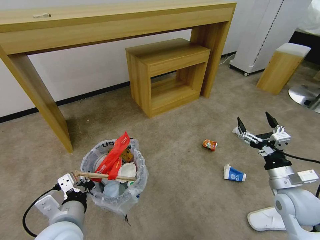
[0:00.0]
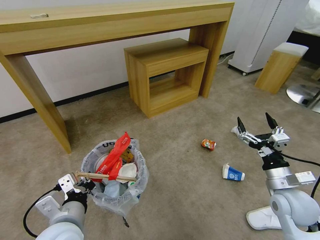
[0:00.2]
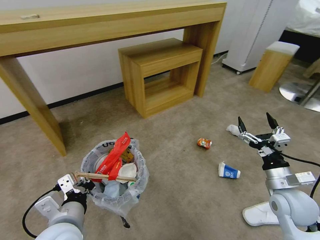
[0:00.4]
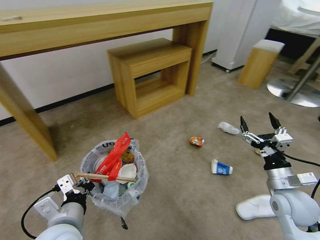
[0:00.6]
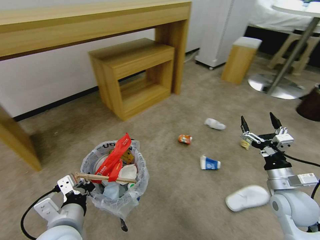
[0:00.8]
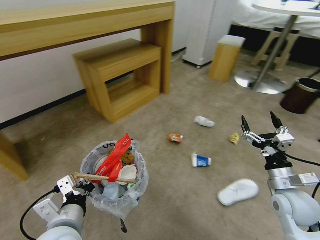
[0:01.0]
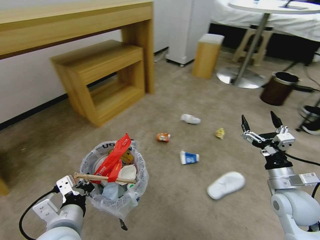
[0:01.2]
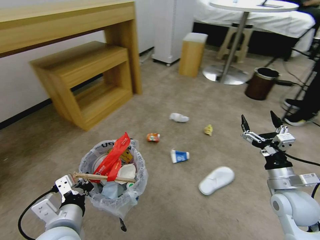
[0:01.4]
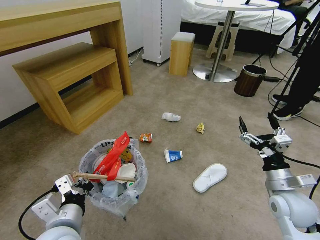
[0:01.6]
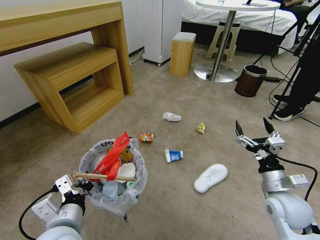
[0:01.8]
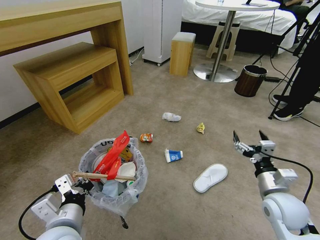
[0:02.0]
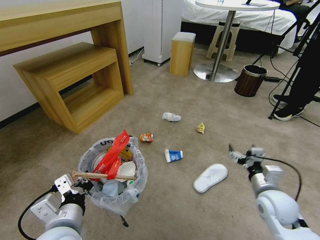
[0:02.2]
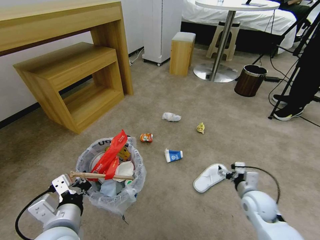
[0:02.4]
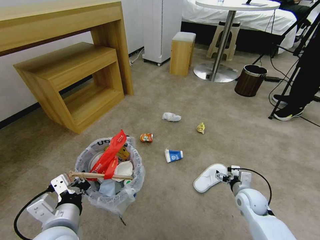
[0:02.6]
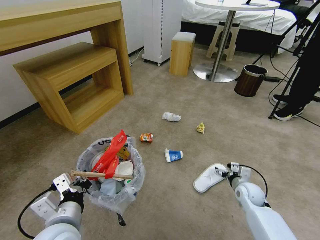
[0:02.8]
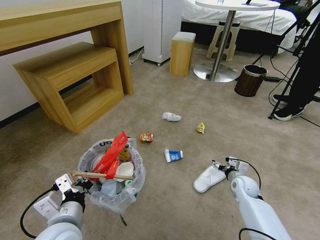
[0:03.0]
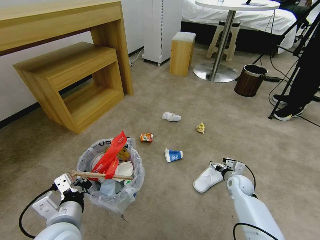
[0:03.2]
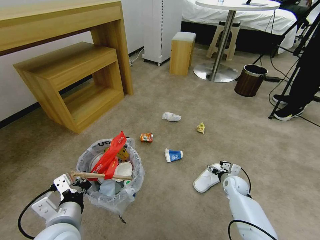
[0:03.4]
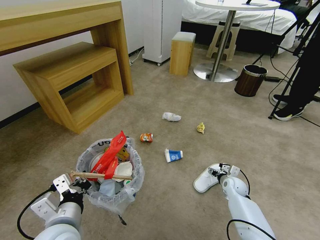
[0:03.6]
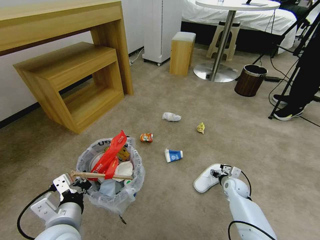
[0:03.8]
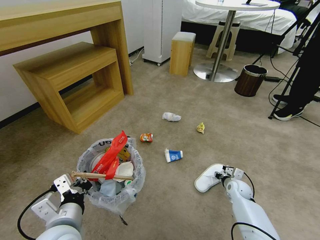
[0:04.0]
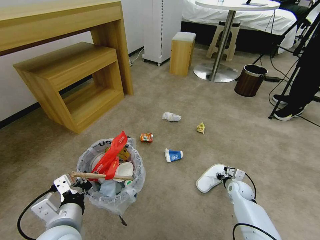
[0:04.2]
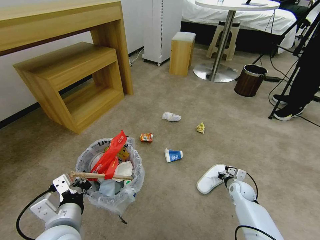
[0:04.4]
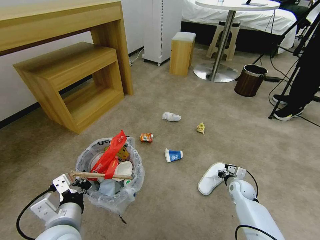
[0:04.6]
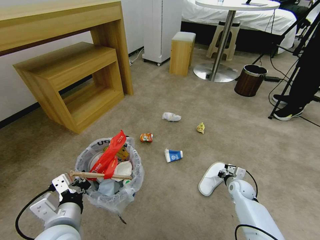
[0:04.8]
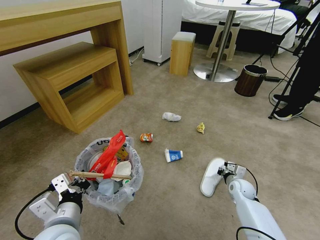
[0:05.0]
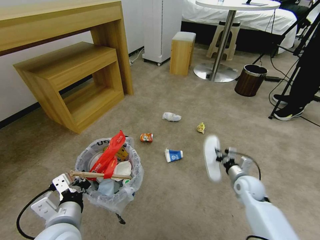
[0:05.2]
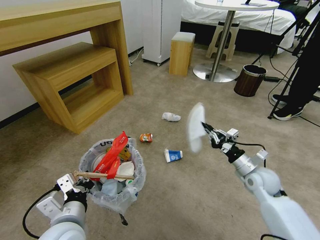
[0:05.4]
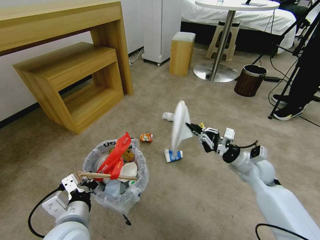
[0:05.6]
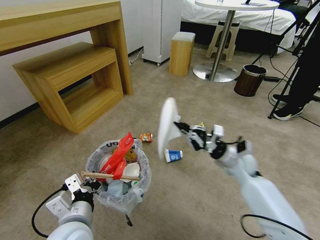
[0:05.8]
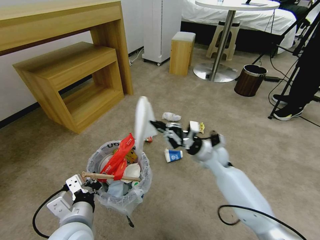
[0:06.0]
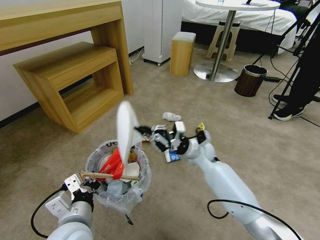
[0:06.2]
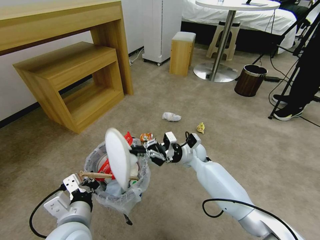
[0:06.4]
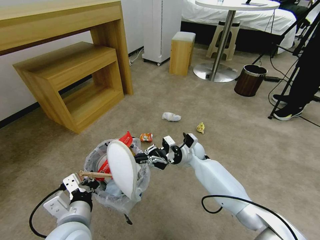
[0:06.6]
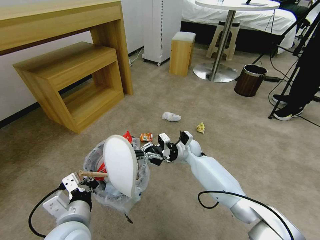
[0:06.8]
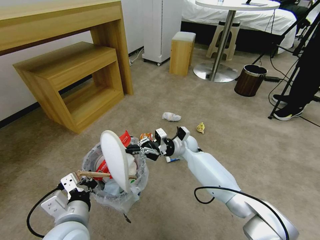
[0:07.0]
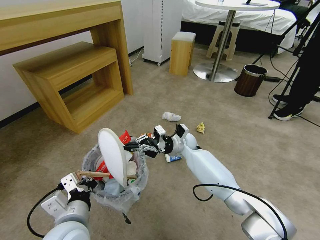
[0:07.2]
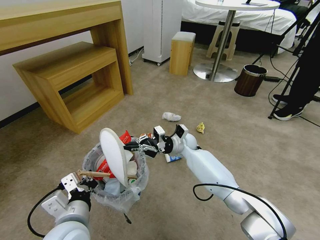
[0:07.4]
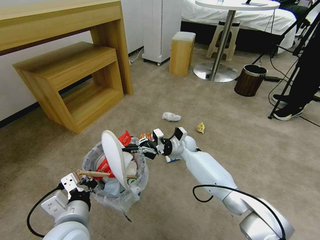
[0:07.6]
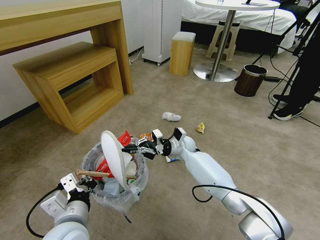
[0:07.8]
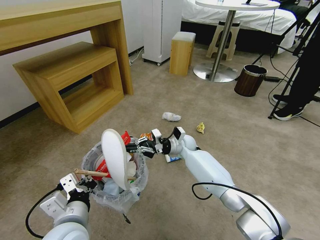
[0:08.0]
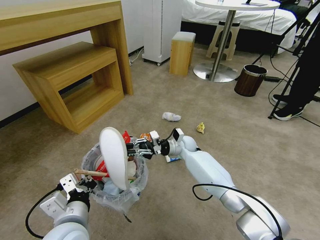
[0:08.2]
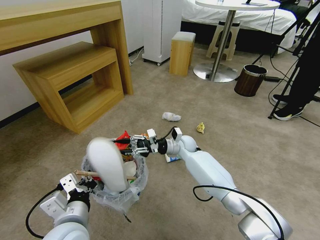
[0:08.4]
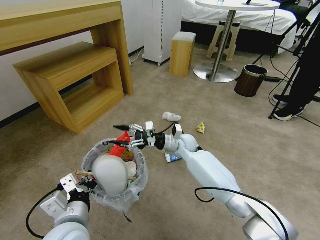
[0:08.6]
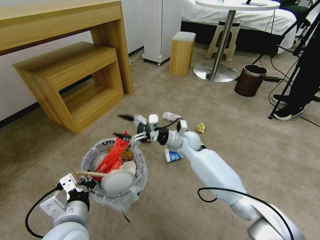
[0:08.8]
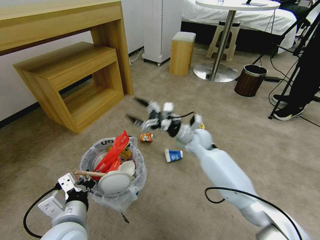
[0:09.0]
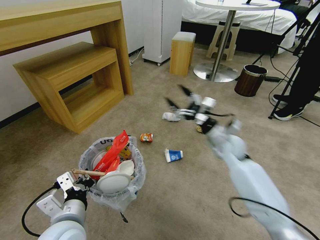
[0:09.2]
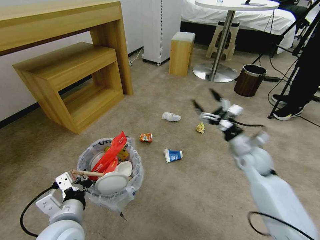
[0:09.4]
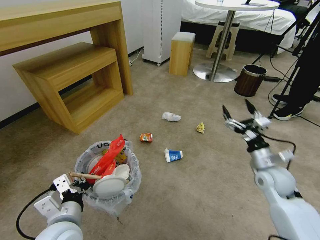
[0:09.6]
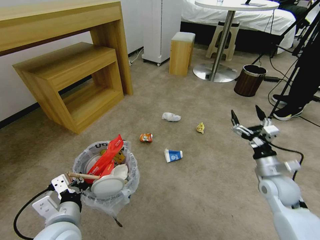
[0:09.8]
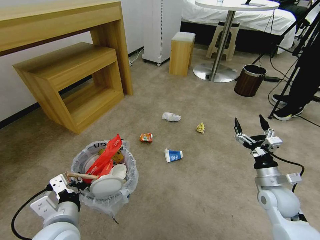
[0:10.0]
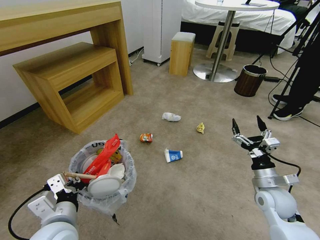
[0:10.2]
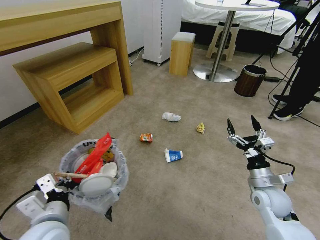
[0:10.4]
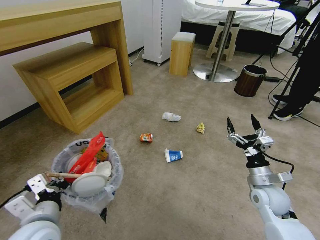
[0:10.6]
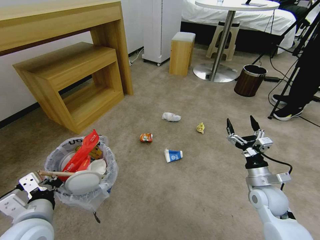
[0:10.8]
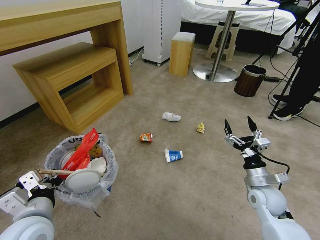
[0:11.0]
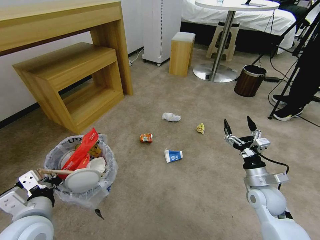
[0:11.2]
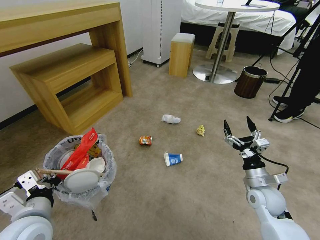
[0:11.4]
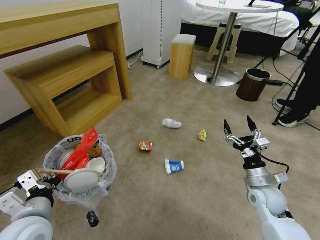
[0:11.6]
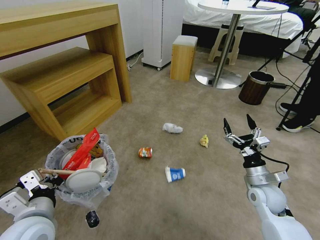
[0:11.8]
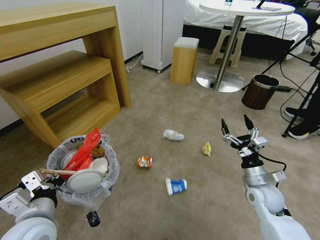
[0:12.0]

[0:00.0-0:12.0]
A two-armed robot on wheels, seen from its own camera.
Task of the whole recording: Pick up the trash bin and place the garbage on the floor into it.
0:01.6 to 0:03.0: The right gripper shifts approximately 20 cm downward and forward.
0:03.0 to 0:04.4: The right gripper goes approximately 5 cm downward, and closes up.
0:04.4 to 0:06.0: The right gripper heads upward and to the left, covering approximately 25 cm.
0:06.0 to 0:07.6: The right gripper goes roughly 15 cm to the left and forward.
0:07.6 to 0:09.0: The right gripper shifts about 10 cm upward and to the right, and opens its fingers.
0:09.0 to 0:10.4: The right gripper moves backward and to the right, some 25 cm.

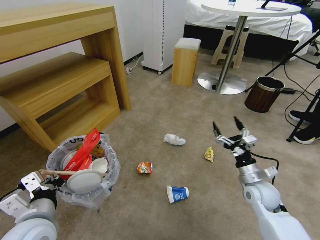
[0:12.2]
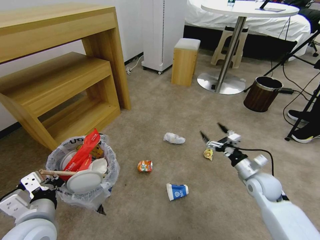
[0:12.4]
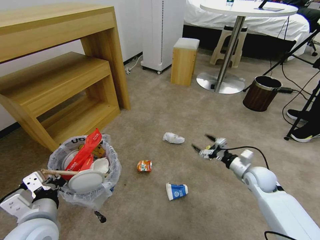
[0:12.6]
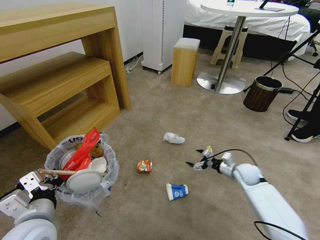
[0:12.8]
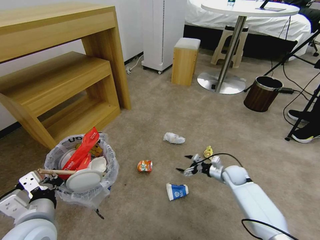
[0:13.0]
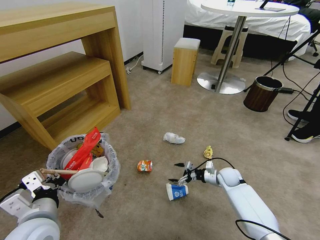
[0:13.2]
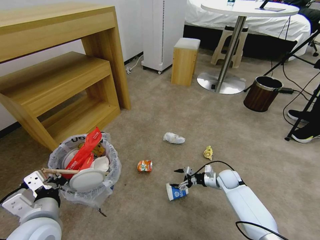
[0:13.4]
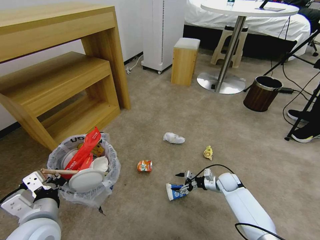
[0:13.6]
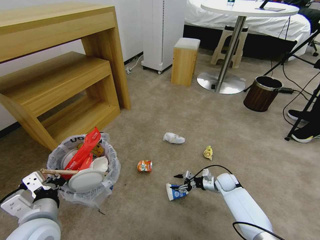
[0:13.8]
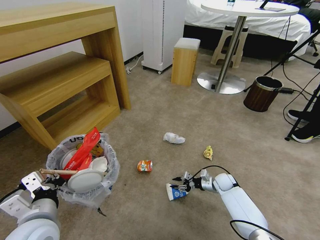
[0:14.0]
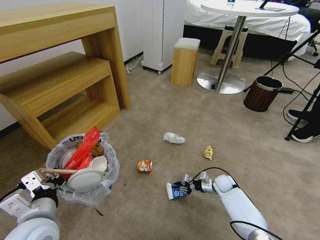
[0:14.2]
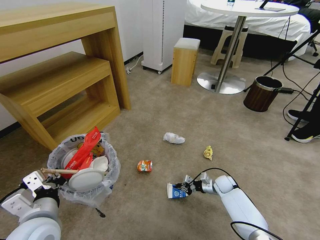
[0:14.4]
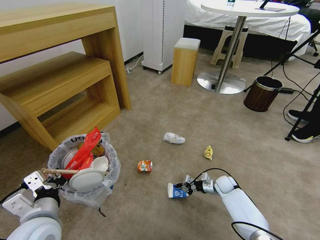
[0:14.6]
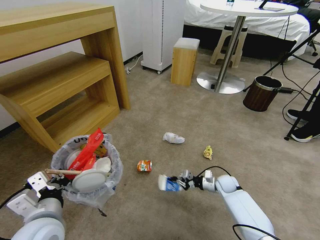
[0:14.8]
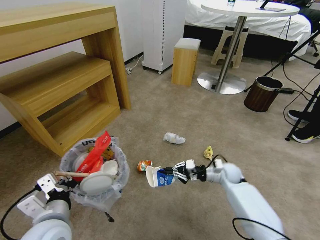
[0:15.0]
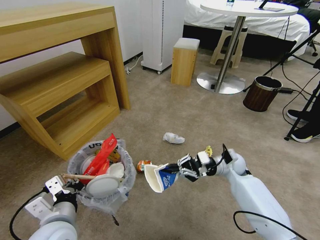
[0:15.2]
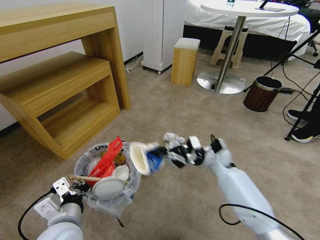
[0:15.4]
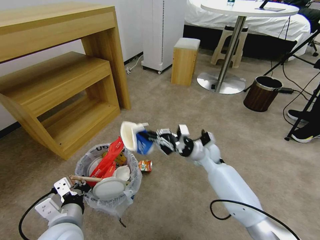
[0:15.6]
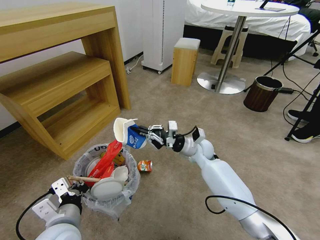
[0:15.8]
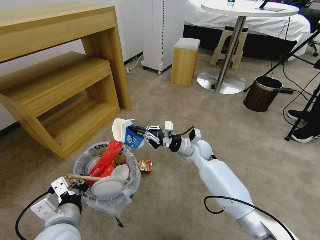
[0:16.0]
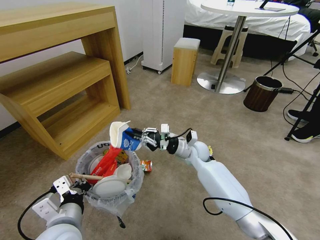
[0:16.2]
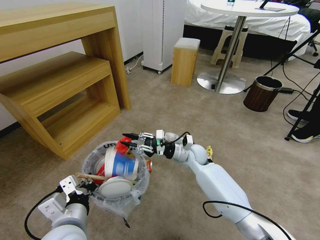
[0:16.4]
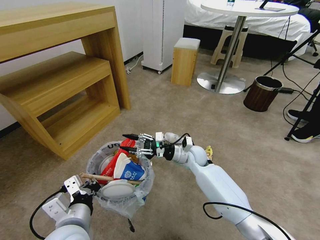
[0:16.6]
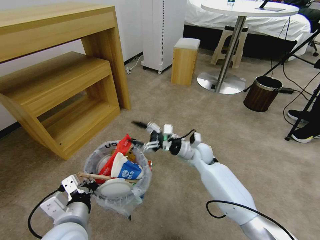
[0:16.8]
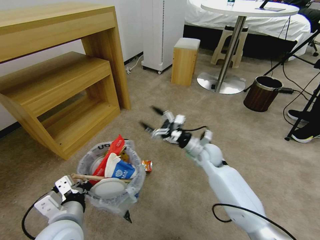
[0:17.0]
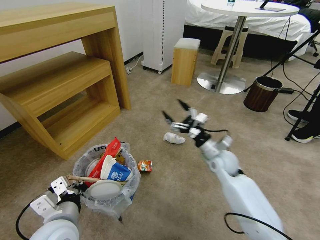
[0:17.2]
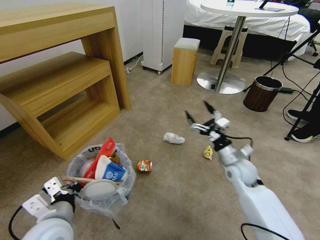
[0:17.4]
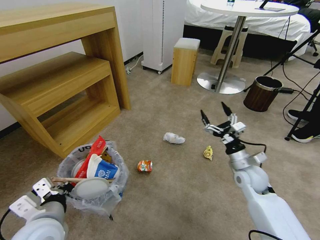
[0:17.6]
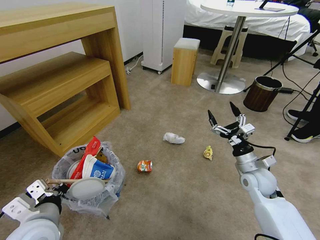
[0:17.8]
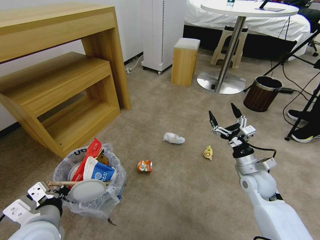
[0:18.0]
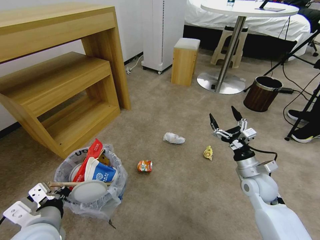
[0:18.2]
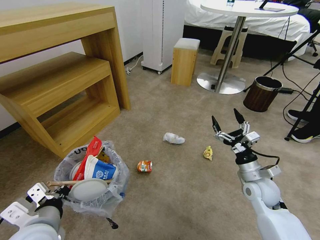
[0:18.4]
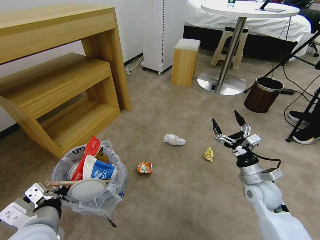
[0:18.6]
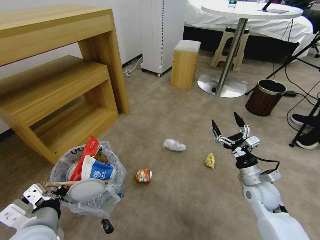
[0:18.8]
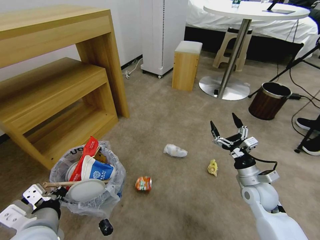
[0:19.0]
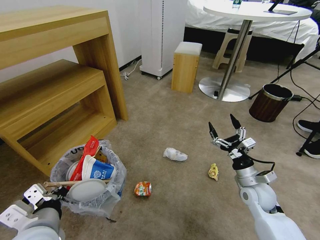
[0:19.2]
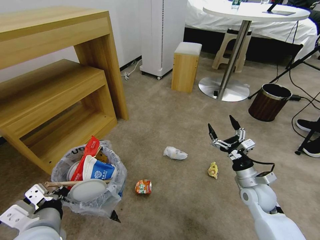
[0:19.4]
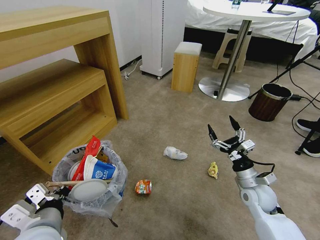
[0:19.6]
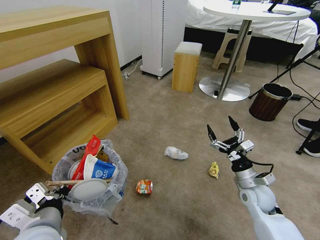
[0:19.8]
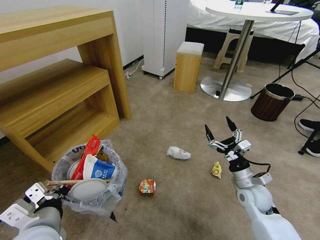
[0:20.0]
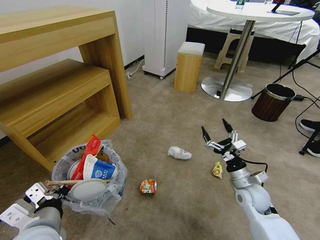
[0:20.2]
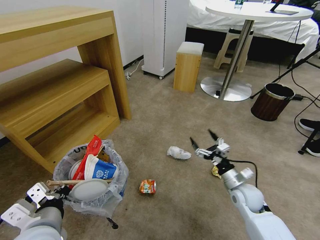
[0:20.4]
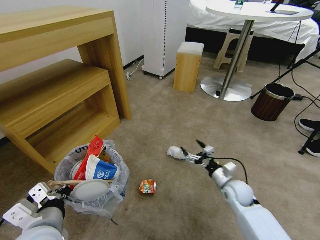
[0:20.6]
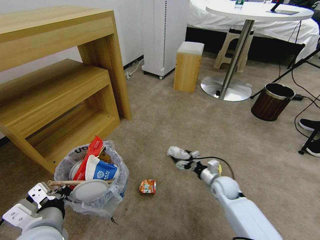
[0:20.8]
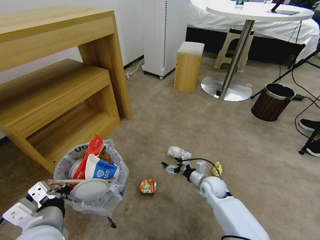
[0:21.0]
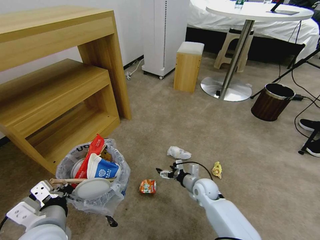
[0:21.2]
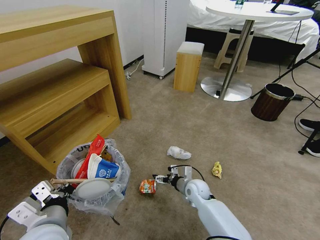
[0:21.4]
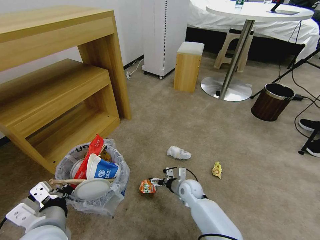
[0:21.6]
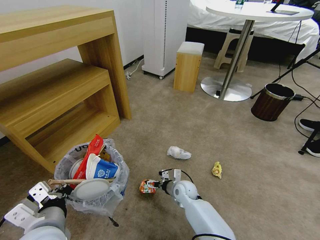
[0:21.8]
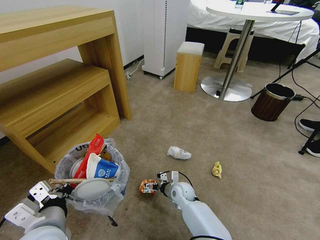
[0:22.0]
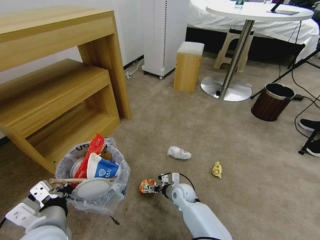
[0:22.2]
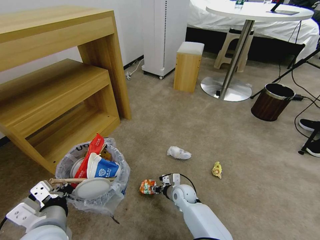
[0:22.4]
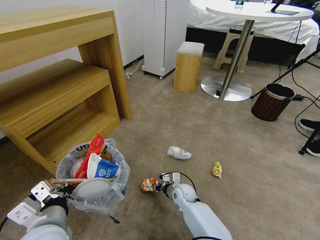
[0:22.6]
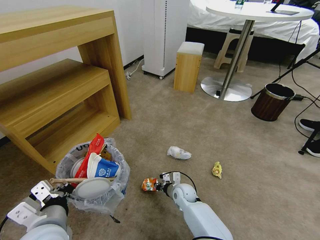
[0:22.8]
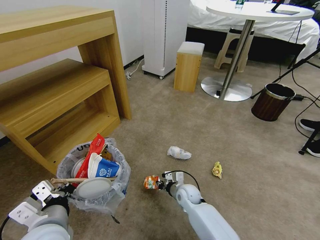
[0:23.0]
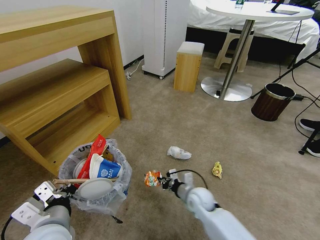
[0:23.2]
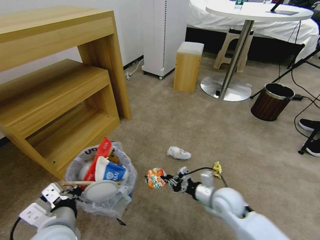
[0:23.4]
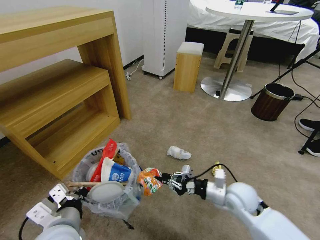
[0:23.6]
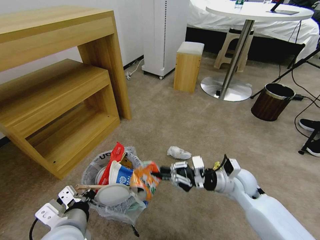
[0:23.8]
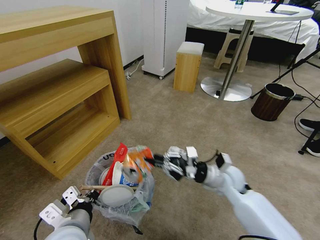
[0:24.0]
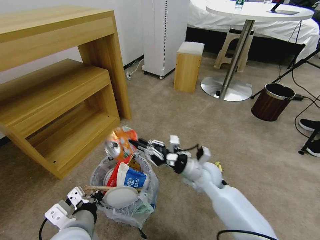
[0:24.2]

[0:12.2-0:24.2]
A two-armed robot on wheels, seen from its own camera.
Task of the whole recording: Pick up the trash bin and place the garbage on the floor into it.
0:12.2 to 0:13.8: The right gripper heads downward and forward, covering approximately 20 cm.
0:13.8 to 0:15.2: The right gripper shifts roughly 15 cm upward, and closes.
0:15.2 to 0:16.6: The right gripper heads to the left, covering roughly 15 cm, and opens its fingers.
0:16.6 to 0:18.2: The left gripper heads to the left, covering approximately 5 cm; the right gripper goes some 25 cm to the right and backward, and opens up.
0:19.8 to 0:21.2: The right gripper moves to the left, downward and forward, roughly 20 cm.
0:21.2 to 0:22.6: The right gripper shifts about 10 cm to the left, and closes its fingers.
0:22.6 to 0:24.2: The right gripper goes roughly 20 cm upward.
